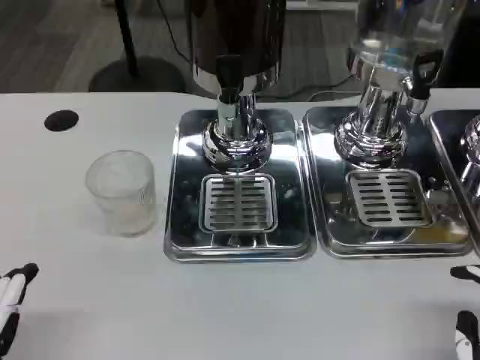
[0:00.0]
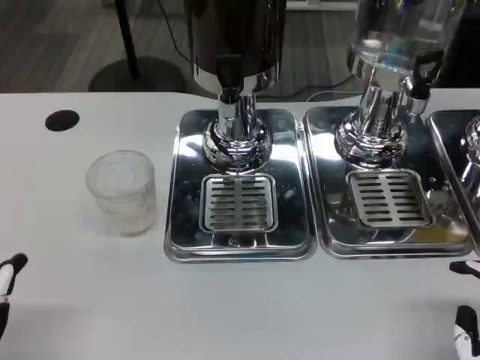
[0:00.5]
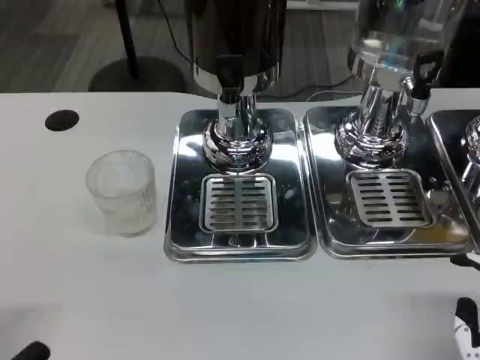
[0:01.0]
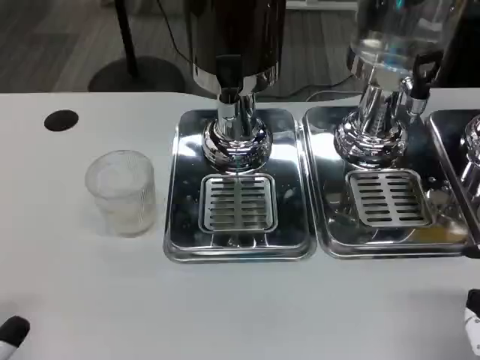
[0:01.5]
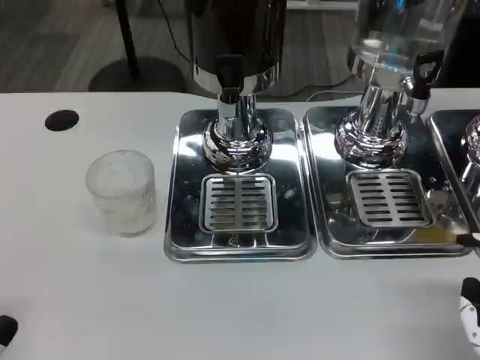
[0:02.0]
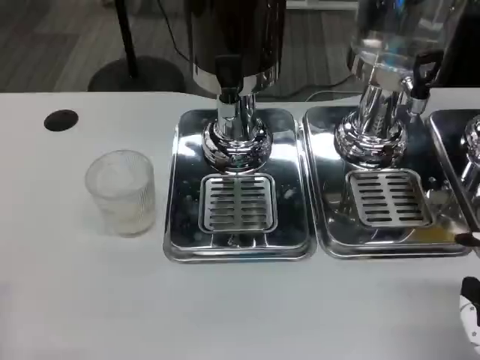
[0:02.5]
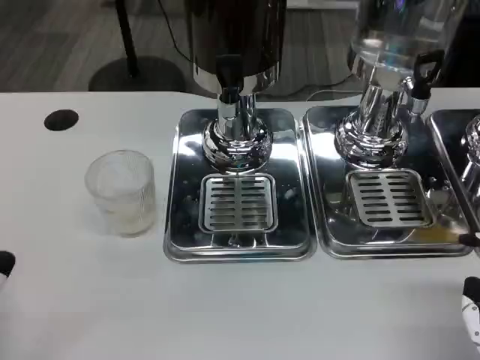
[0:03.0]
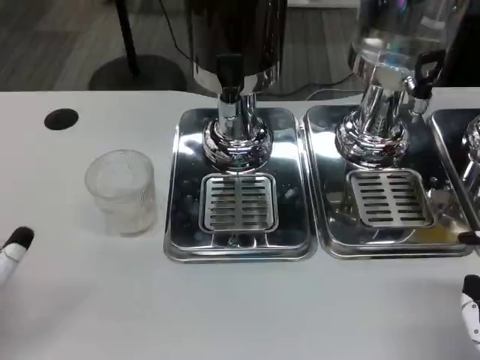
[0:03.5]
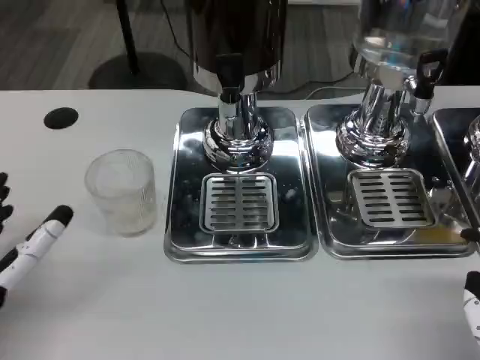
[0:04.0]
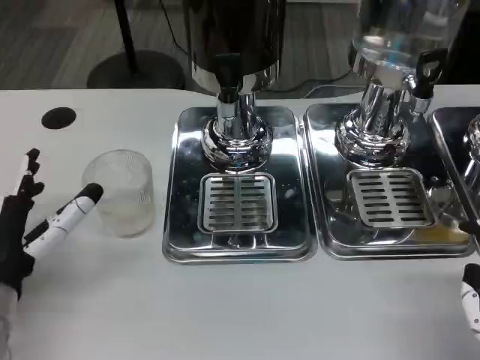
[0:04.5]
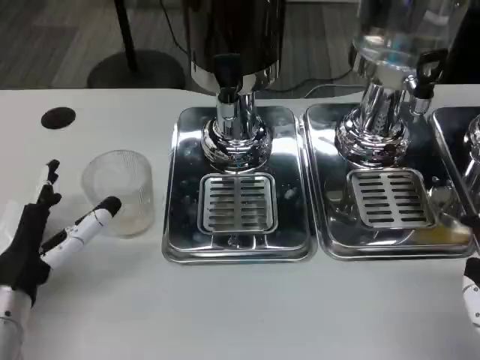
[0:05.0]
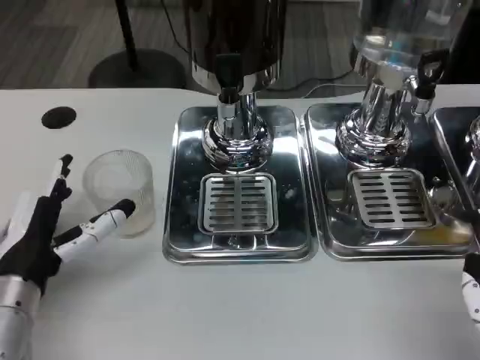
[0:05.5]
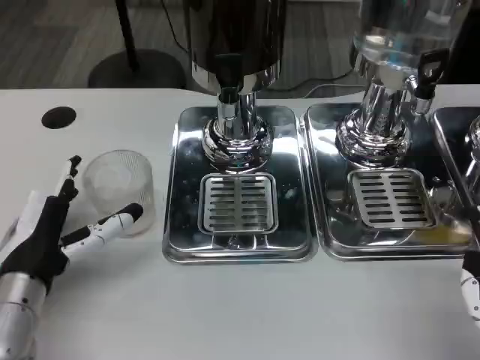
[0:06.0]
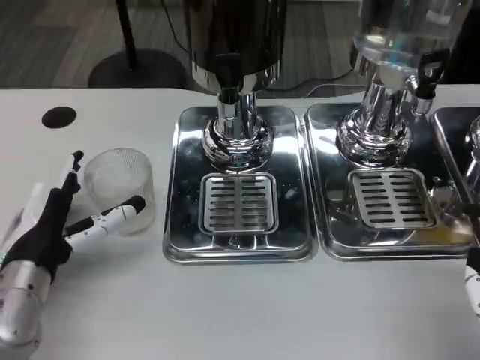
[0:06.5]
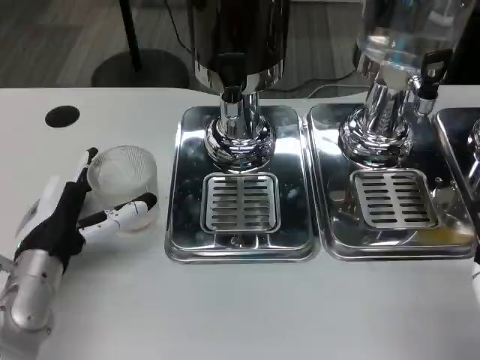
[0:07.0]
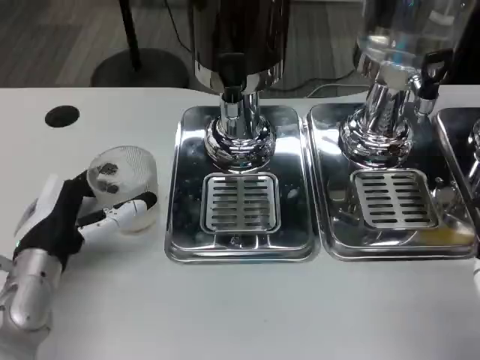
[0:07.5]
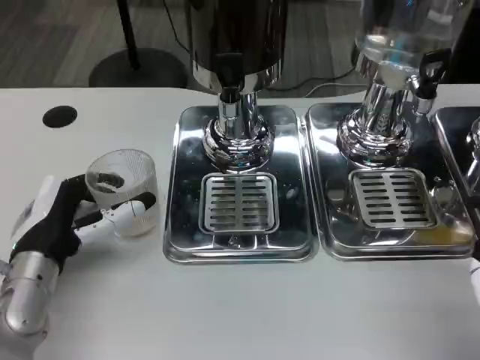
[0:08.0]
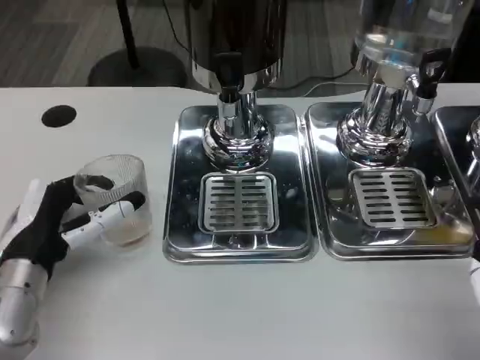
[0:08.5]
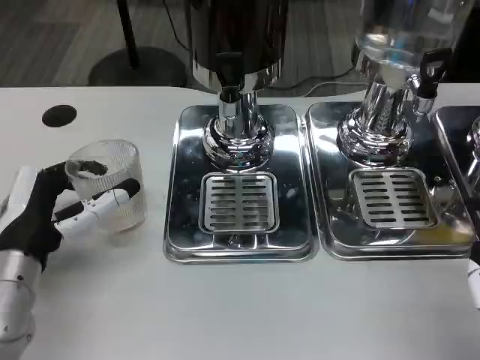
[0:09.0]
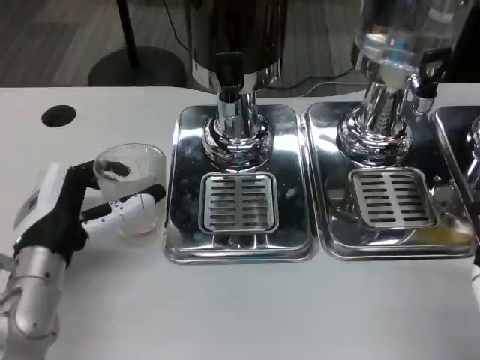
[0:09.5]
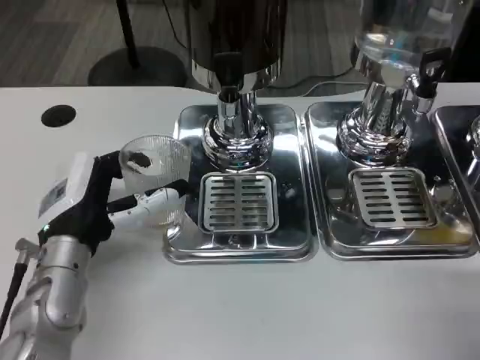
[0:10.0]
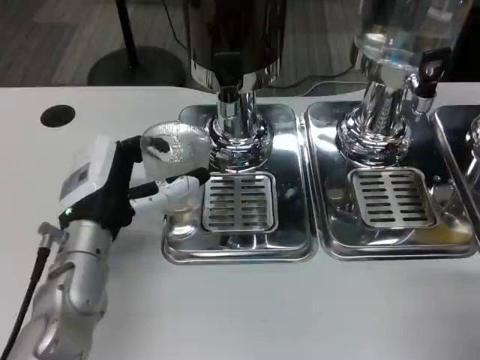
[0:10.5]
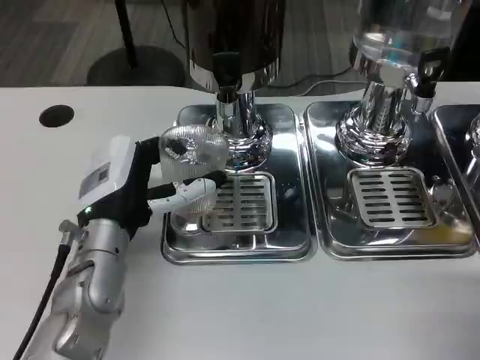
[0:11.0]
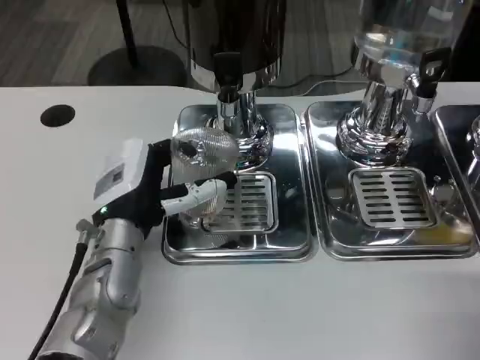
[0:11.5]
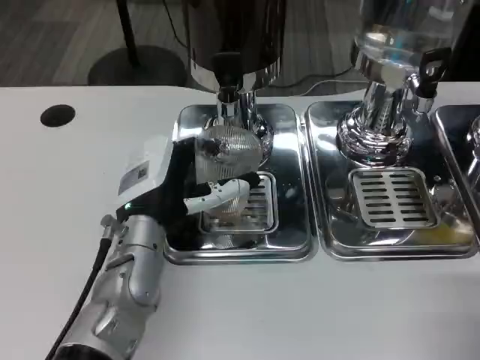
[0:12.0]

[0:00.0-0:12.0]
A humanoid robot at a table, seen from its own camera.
Task of the whole recording: Grasp the cup under the faucet to collect the drink, then remove the cup.
0:02.0 to 0:04.0: The left hand heads forward, covering roughly 15 cm.
0:04.0 to 0:06.0: The left hand changes place by about 5 cm.
0:06.0 to 0:10.0: The hands move only a little.
0:10.0 to 0:12.0: The left hand shifts about 5 cm to the right.

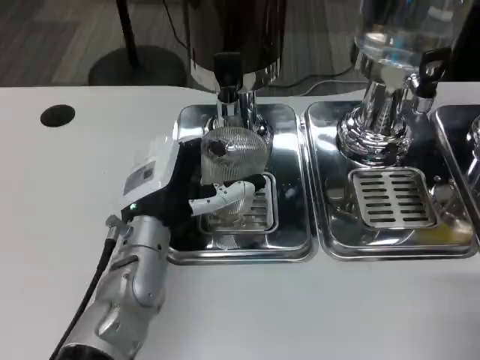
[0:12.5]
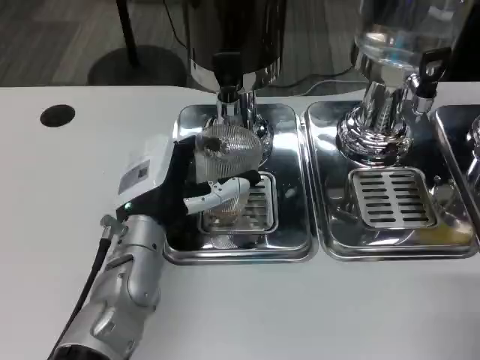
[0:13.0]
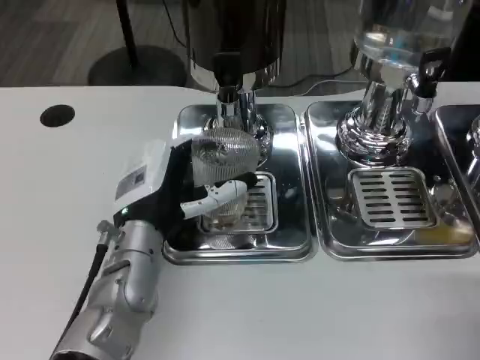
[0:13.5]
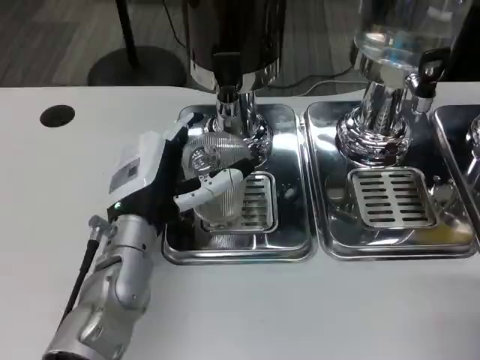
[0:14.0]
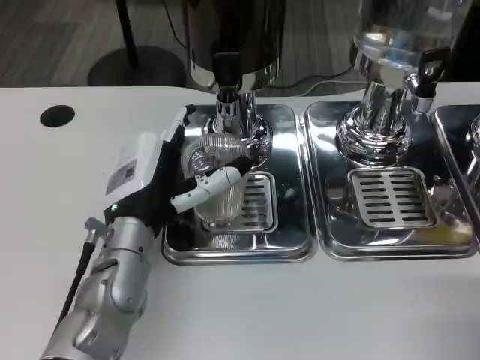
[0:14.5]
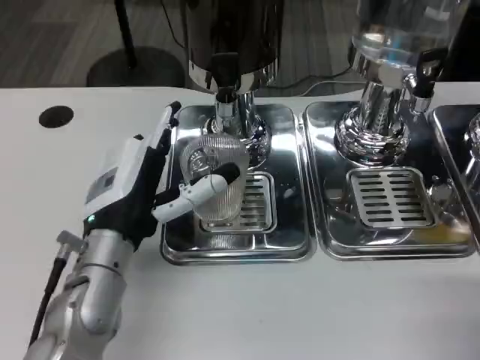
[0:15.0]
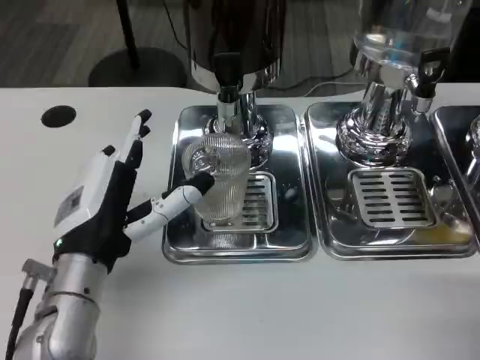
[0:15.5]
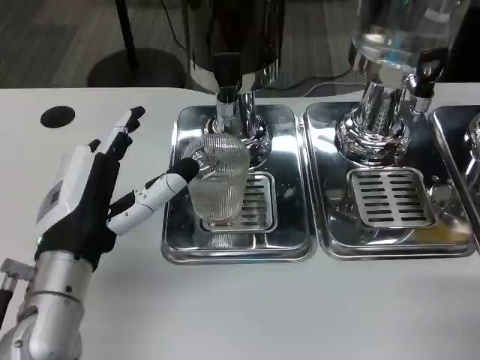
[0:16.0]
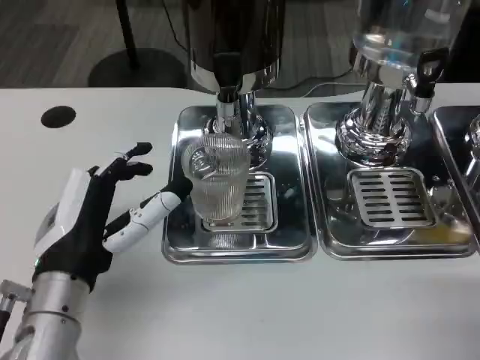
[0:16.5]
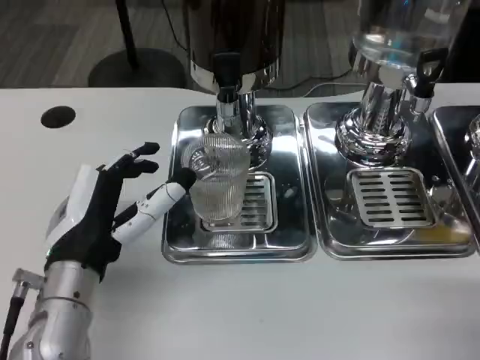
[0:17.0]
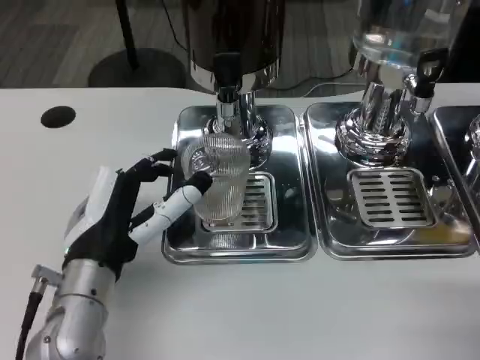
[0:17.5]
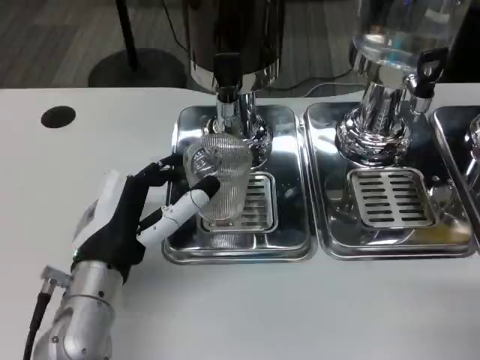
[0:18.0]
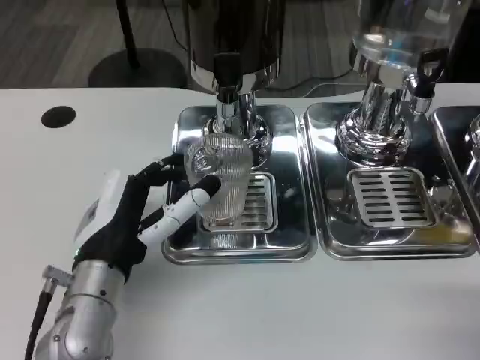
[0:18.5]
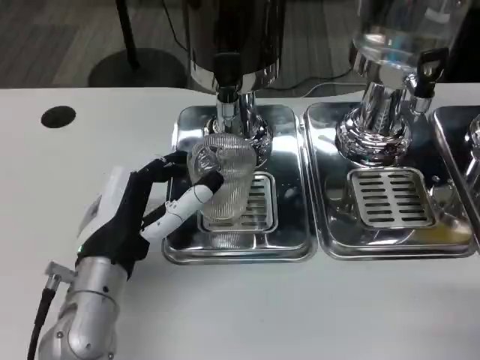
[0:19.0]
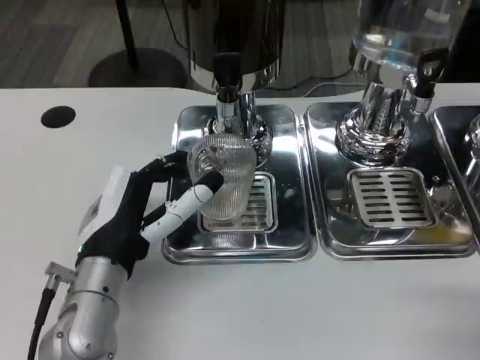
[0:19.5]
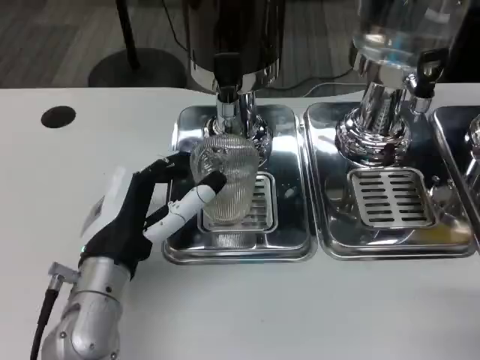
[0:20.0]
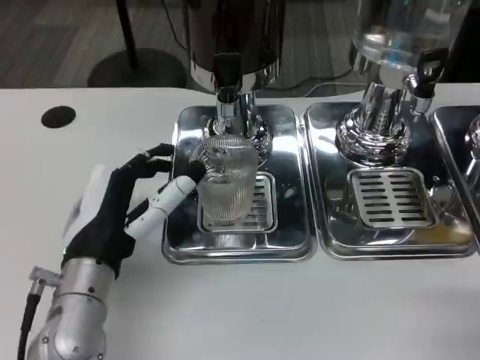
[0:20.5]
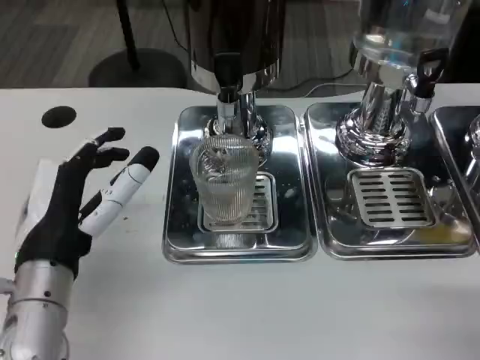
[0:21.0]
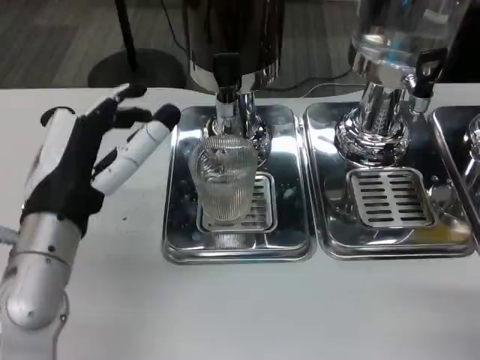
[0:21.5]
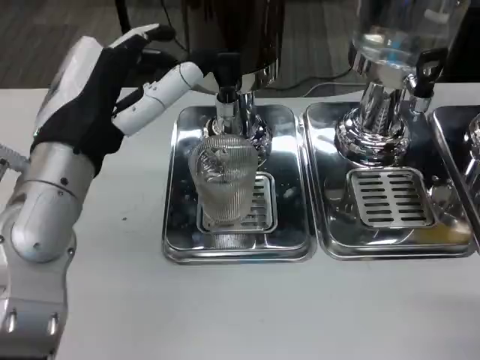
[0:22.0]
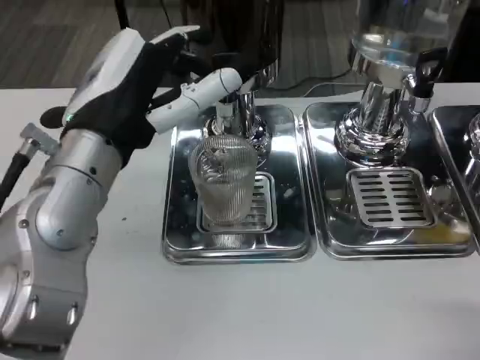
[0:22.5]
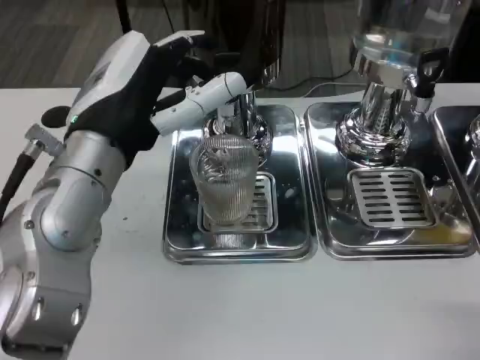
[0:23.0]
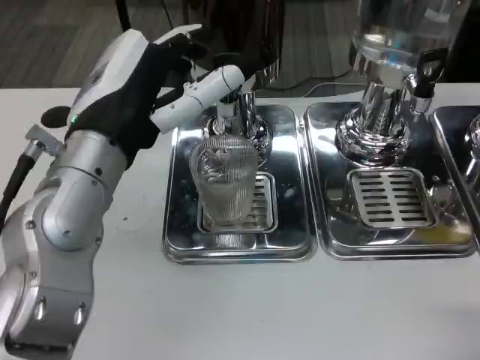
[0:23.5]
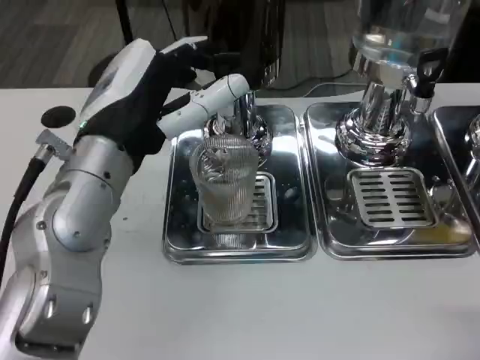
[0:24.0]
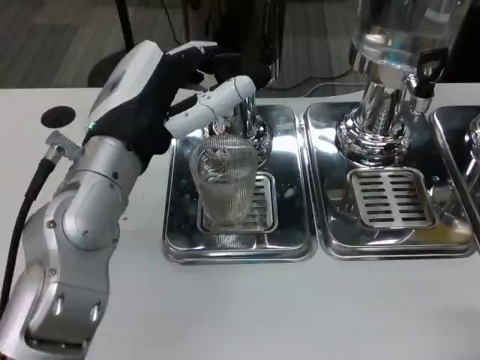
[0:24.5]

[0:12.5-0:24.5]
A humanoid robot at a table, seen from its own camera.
Task of the whole recording: Grasp the cup under the faucet to collect the drink, then remove the cup.
0:12.5 to 0:14.5: There are only small adjustments of the hands.
0:14.5 to 0:16.5: The left hand travels backward by approximately 5 cm.
0:16.5 to 0:20.5: The hands stay close to where they were, moving slightly.
0:20.5 to 0:22.5: The left hand moves upward, approximately 15 cm.
0:22.5 to 0:24.5: The hands move only a little.

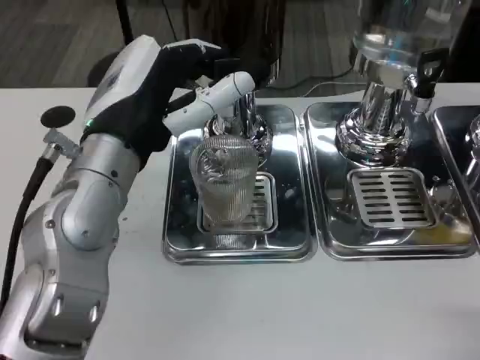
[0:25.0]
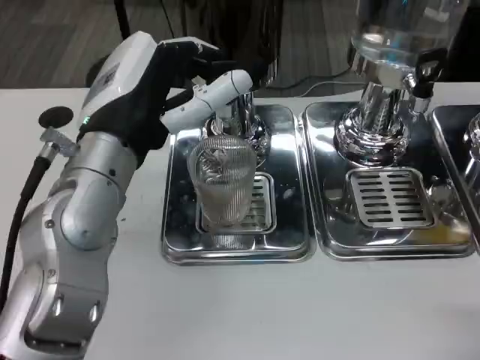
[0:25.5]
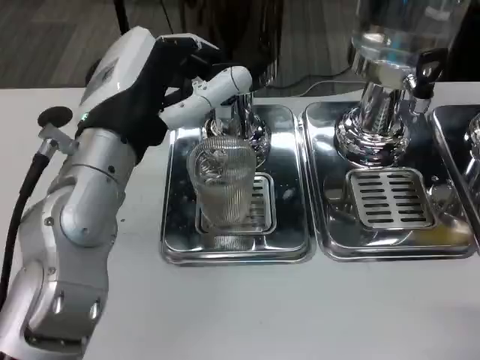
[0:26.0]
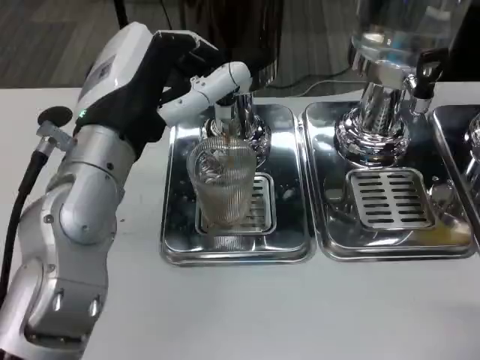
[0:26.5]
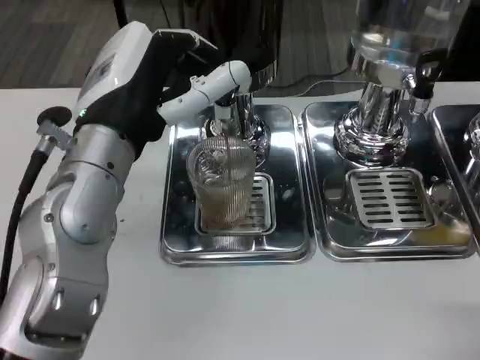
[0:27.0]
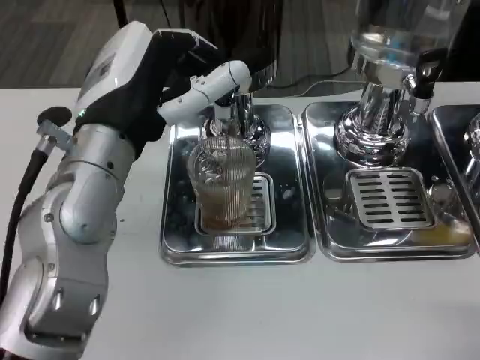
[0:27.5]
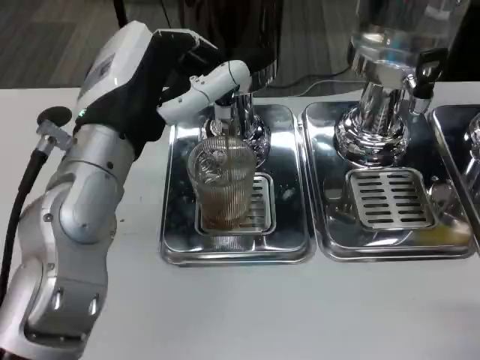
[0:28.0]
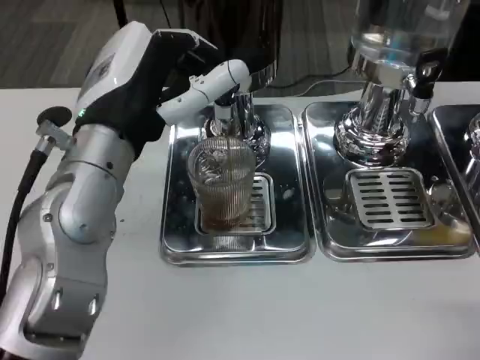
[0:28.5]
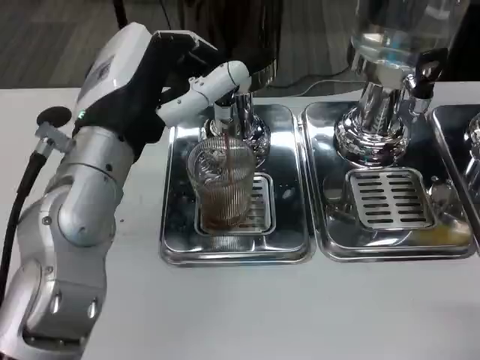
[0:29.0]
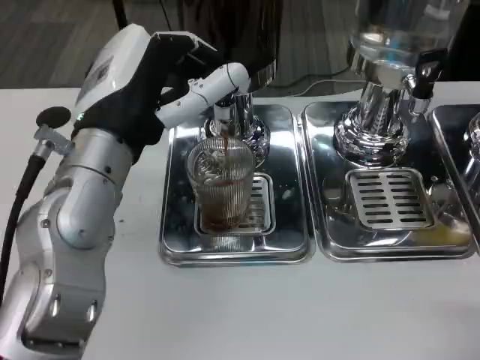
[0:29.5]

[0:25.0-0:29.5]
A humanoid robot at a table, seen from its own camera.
Task of the whole recording: Grasp the cup under the faucet to collect the drink, then remove the cup.
0:27.0 to 0:29.5: The two hands keep their place.
